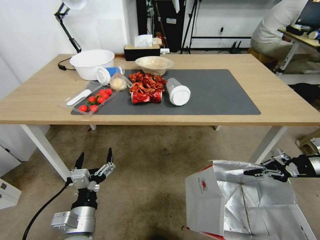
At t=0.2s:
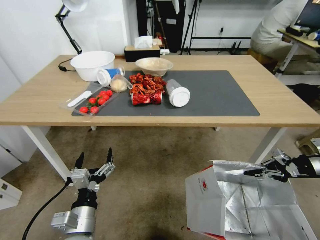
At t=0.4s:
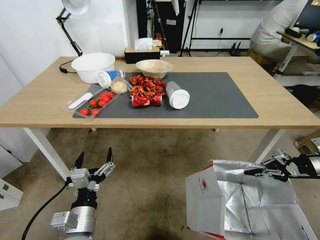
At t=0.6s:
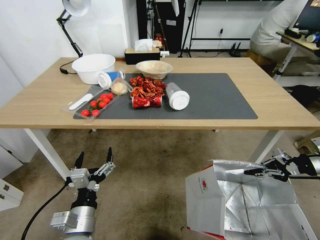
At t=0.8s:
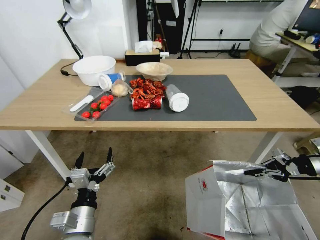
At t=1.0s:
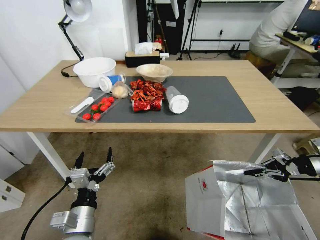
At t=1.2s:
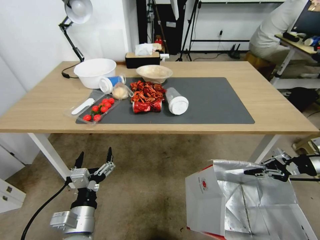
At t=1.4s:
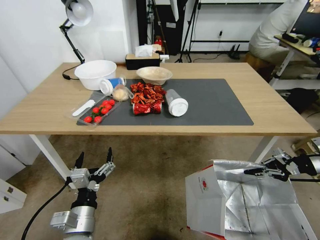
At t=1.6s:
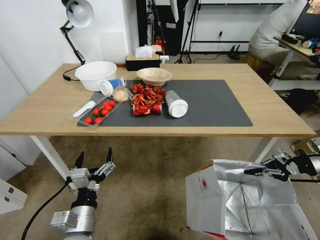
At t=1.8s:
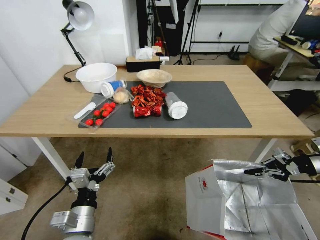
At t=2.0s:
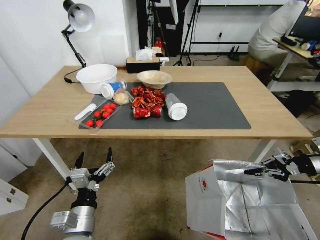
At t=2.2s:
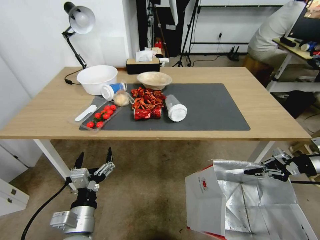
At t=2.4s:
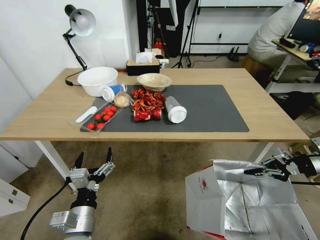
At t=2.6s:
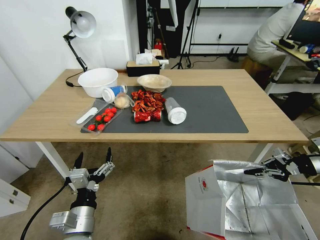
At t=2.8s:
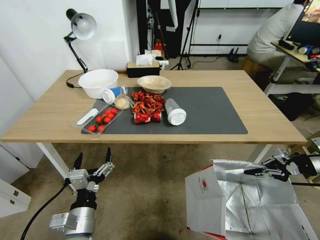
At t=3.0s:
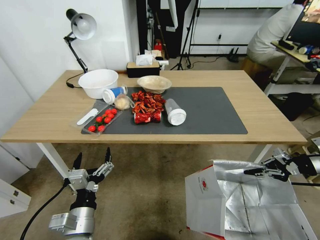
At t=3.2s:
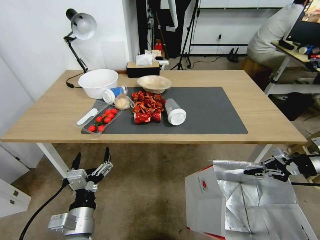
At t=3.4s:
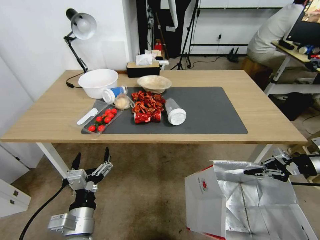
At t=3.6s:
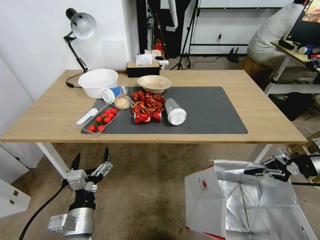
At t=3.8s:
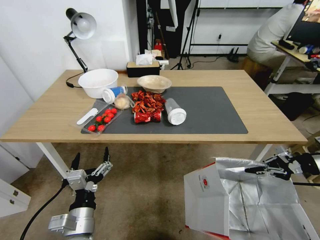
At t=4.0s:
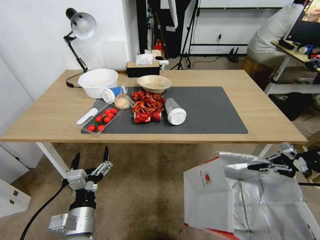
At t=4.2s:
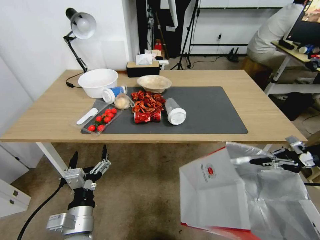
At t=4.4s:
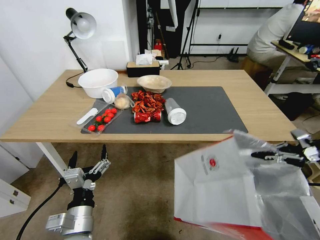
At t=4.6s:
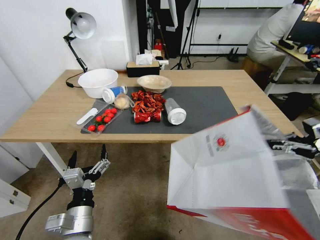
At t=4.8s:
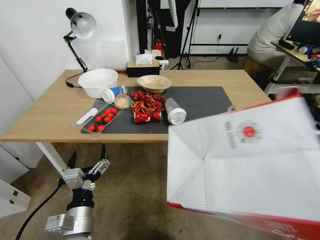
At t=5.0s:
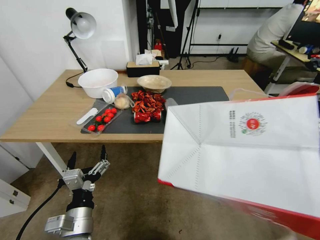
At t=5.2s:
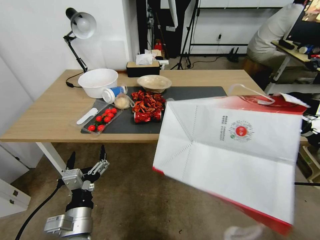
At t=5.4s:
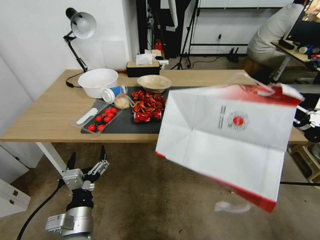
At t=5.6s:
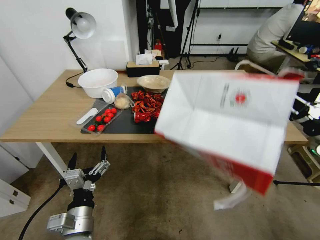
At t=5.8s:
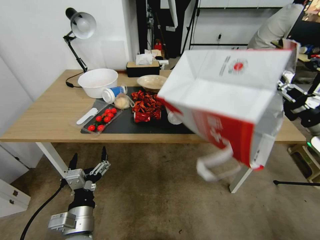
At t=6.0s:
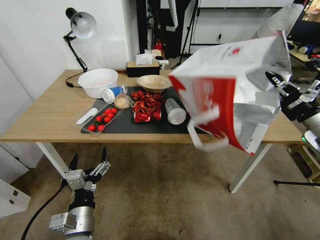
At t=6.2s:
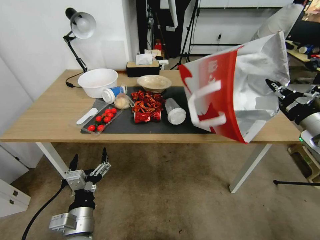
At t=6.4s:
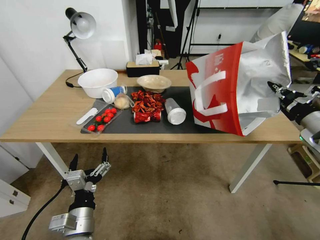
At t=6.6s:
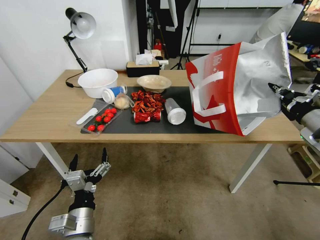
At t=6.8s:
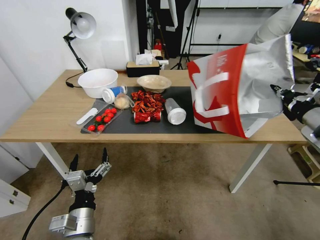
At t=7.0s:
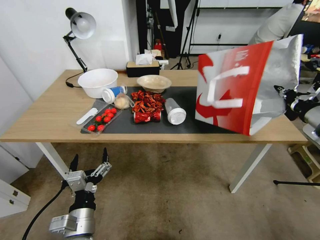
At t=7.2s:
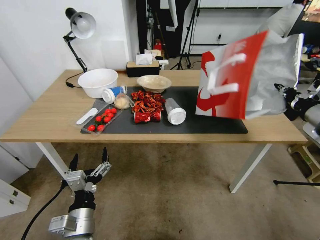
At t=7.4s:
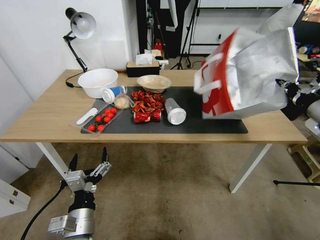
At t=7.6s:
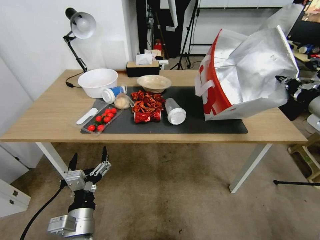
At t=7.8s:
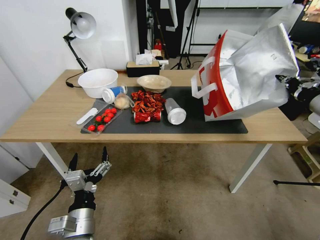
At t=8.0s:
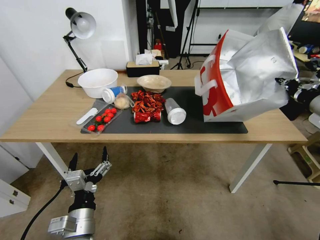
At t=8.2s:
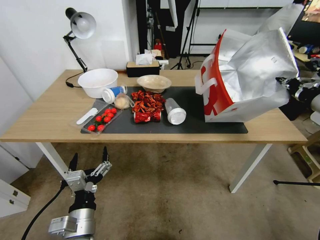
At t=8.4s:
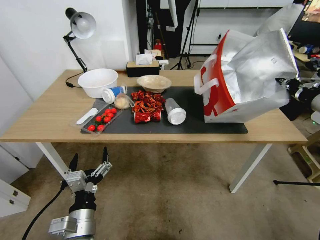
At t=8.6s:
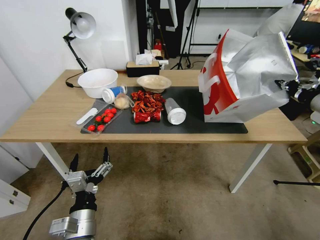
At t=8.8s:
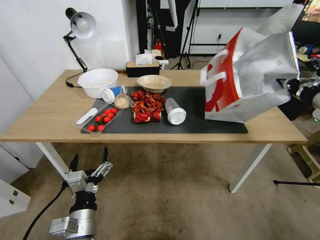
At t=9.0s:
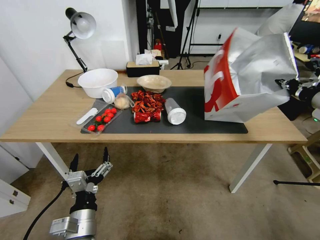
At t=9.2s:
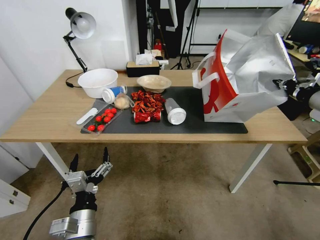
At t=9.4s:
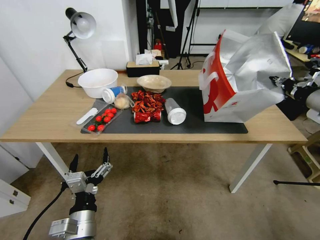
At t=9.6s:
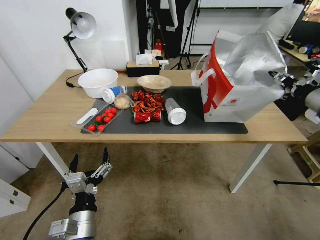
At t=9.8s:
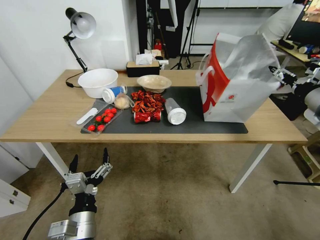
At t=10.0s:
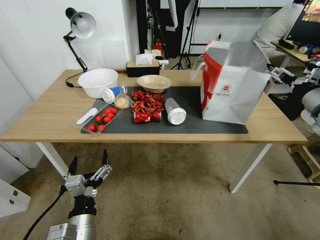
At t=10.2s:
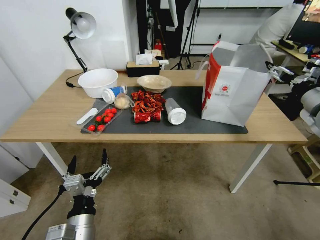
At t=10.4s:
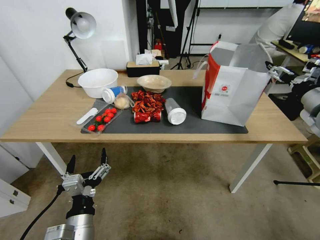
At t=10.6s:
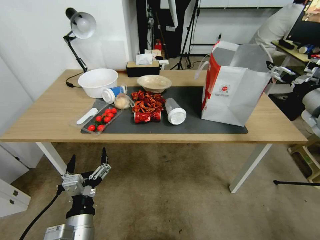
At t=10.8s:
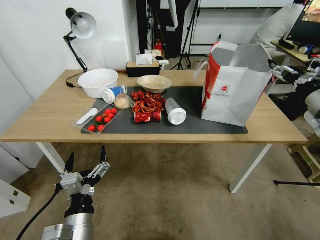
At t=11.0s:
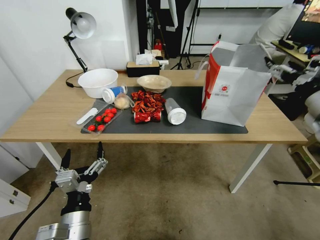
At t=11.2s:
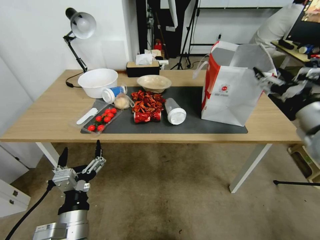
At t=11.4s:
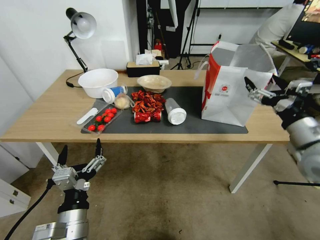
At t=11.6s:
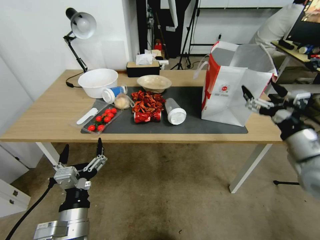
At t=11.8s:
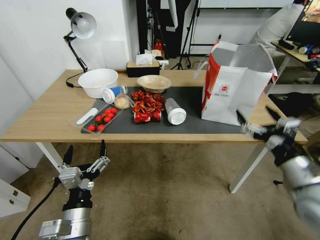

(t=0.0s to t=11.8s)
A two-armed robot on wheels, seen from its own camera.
Task of the whole recording: Pick up the food delivery bag from the floor and place it on the table.
t=3.0s - t=4.4s: The grippers make only small movements.
t=4.4s - t=6.0s: The right gripper shifts roughly 10 cm to the left.
t=6.0s - t=7.4s: The right gripper goes some 10 cm upward and to the left.
t=7.4s - t=8.8s: There are only small adjustments of the grippers.
t=8.8s - t=10.4s: The right gripper opens.
t=10.4s - t=11.8s: The right gripper heads backward, to the left and downward, covering about 20 cm.

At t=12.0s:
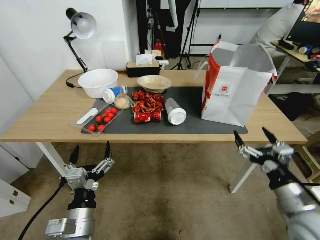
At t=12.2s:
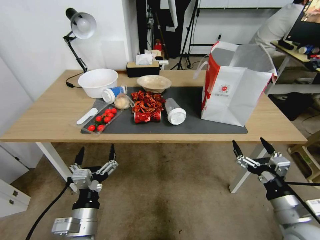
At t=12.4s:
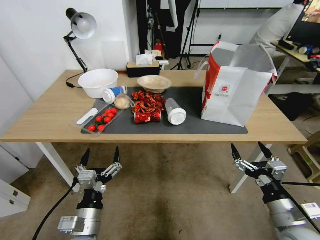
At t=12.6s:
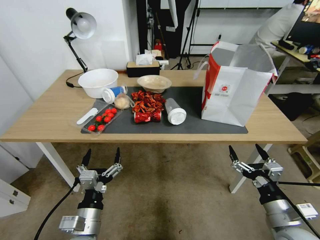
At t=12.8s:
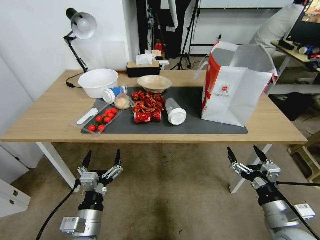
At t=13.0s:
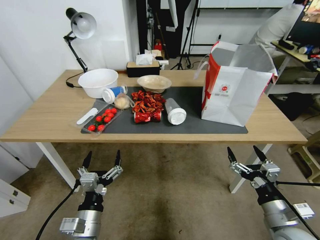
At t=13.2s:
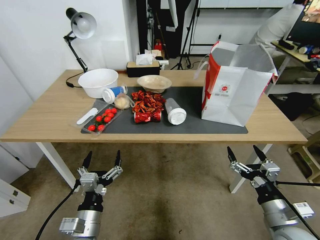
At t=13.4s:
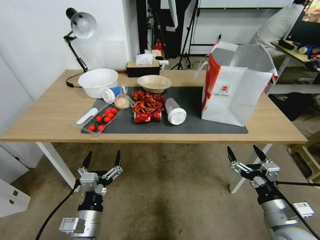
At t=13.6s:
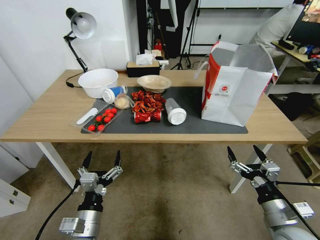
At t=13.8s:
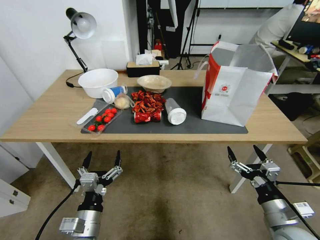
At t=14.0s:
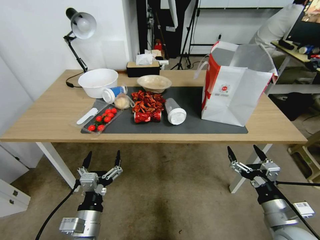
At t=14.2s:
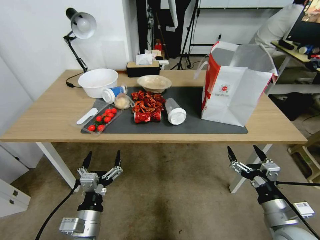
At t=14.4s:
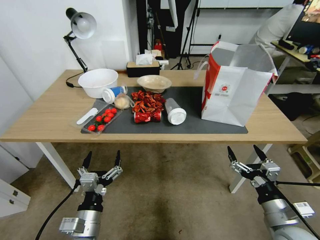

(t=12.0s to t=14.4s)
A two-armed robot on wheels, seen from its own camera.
Task of the whole recording: Pick up the food delivery bag from the floor and place it on the table.
t=12.0s - t=13.2s: The right gripper is displaced downward by roughly 5 cm.
t=13.2s - t=14.4s: The two grippers keep their place.
